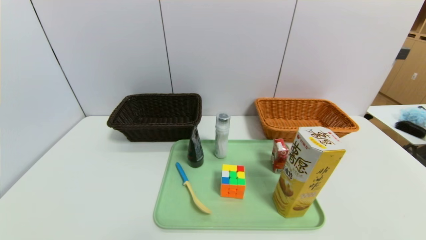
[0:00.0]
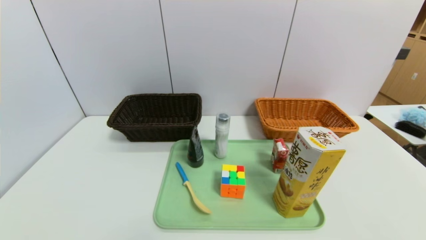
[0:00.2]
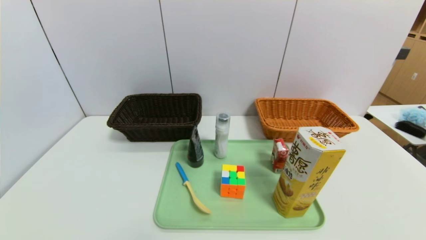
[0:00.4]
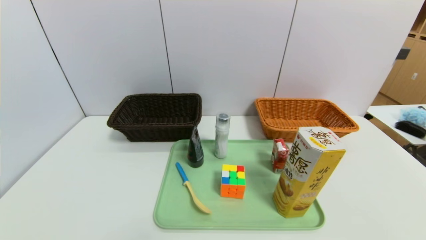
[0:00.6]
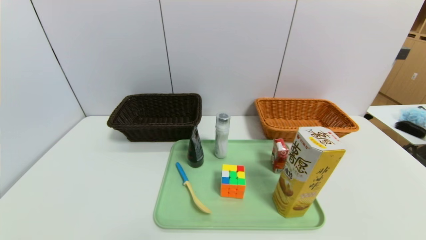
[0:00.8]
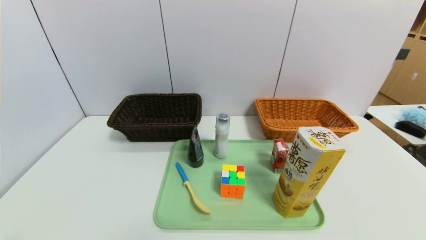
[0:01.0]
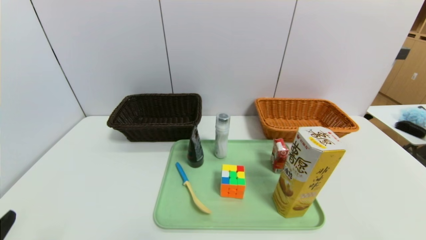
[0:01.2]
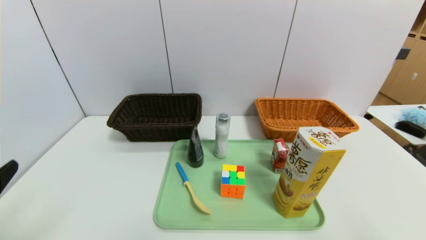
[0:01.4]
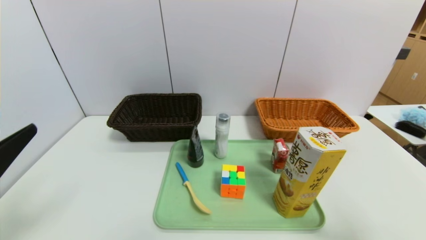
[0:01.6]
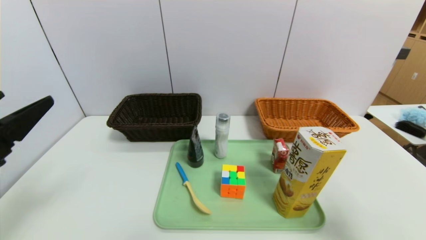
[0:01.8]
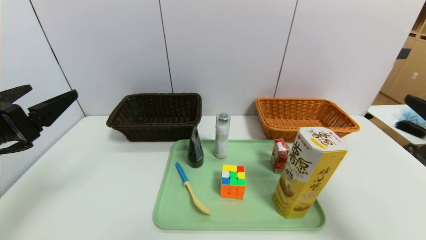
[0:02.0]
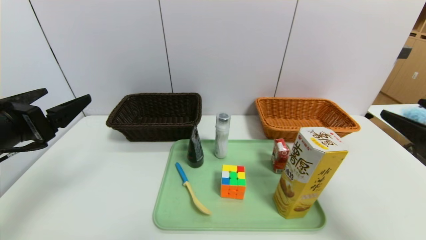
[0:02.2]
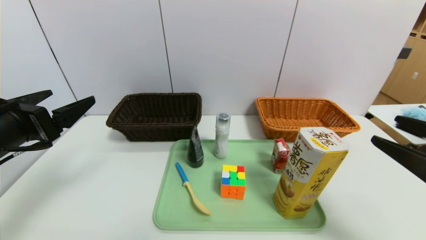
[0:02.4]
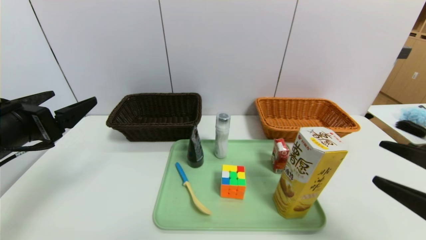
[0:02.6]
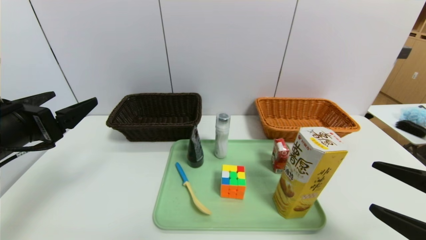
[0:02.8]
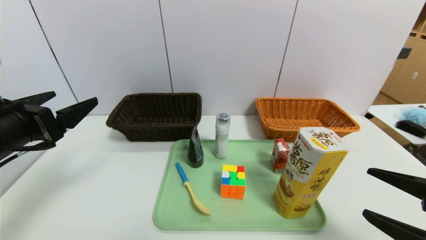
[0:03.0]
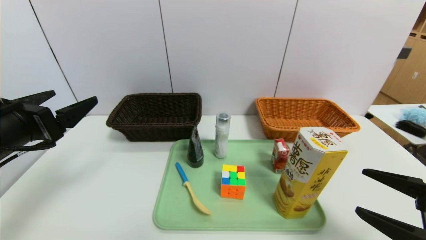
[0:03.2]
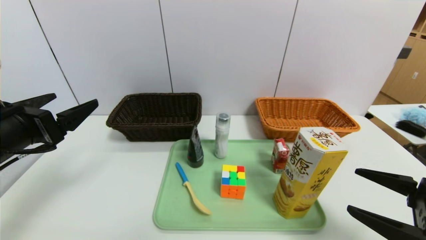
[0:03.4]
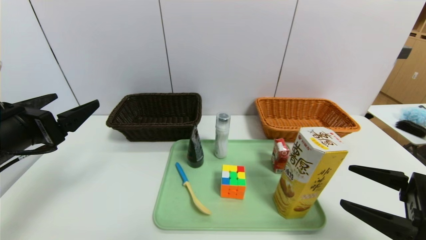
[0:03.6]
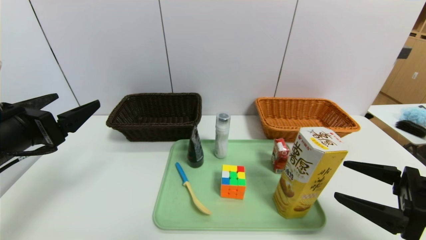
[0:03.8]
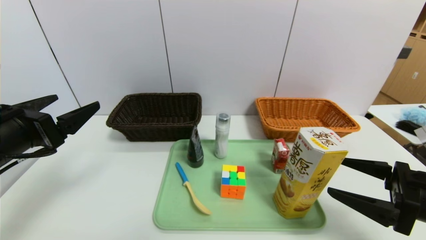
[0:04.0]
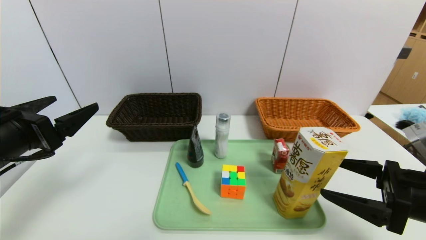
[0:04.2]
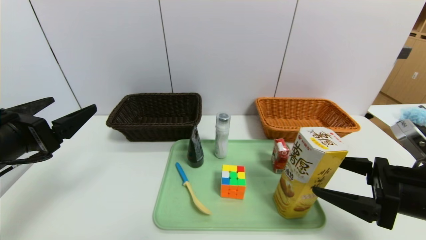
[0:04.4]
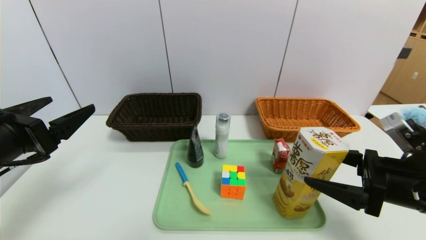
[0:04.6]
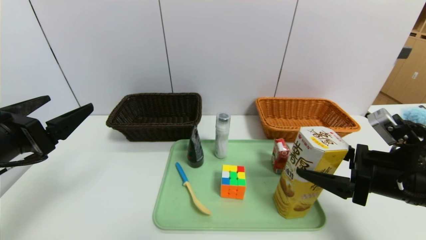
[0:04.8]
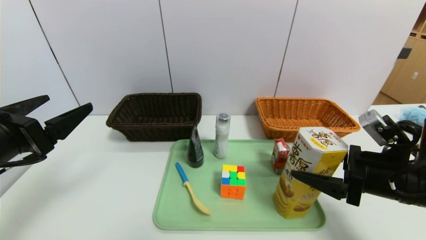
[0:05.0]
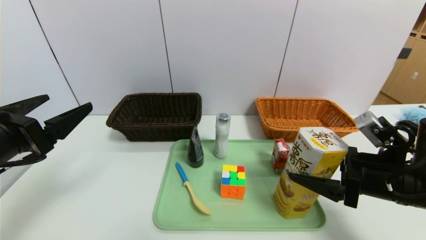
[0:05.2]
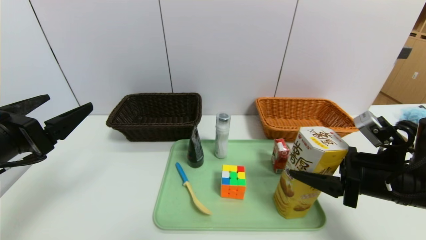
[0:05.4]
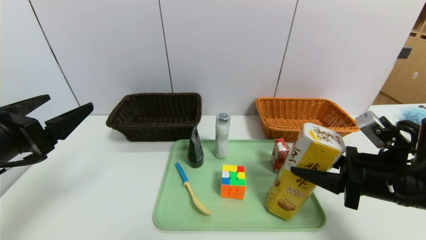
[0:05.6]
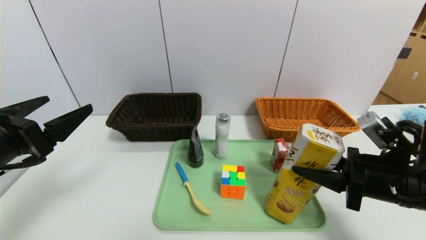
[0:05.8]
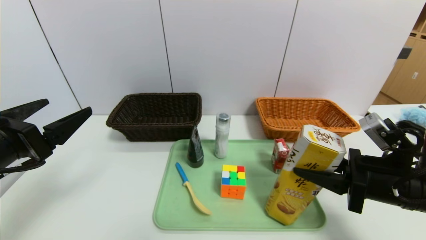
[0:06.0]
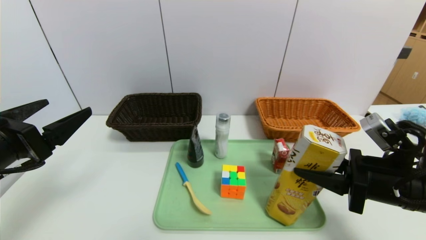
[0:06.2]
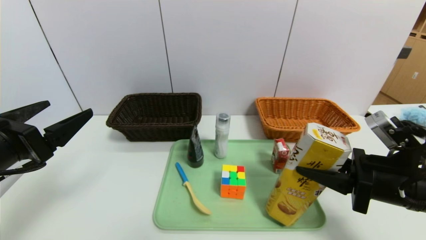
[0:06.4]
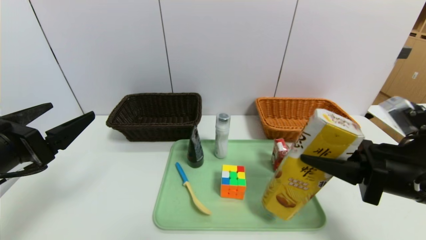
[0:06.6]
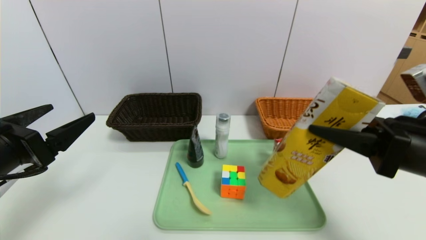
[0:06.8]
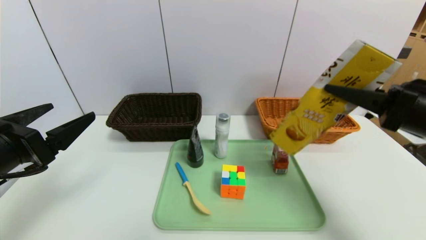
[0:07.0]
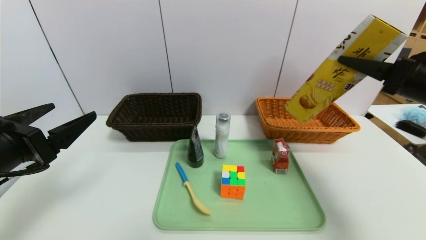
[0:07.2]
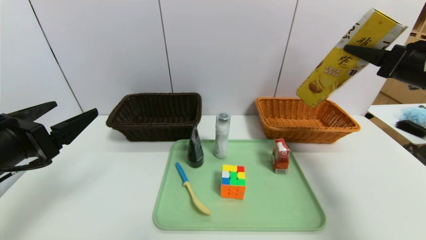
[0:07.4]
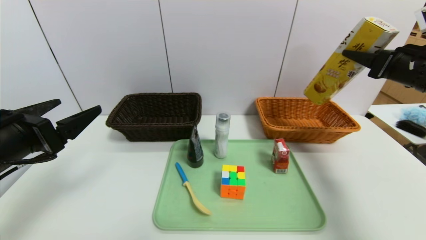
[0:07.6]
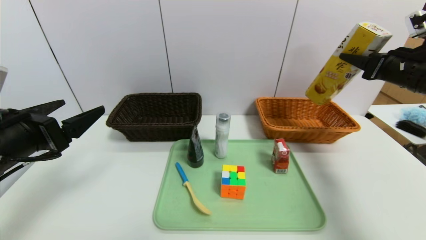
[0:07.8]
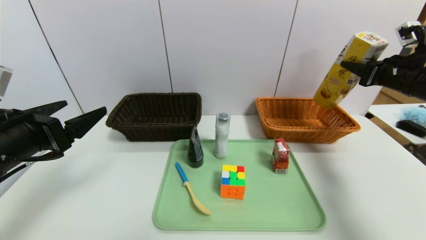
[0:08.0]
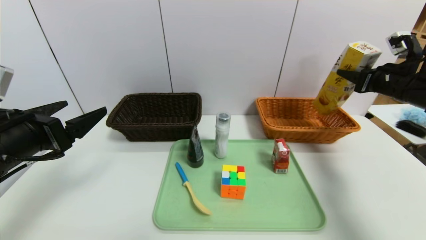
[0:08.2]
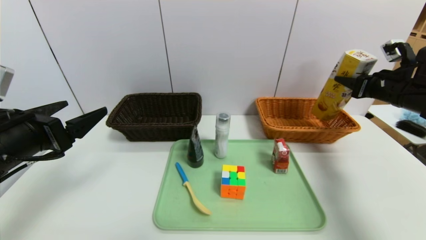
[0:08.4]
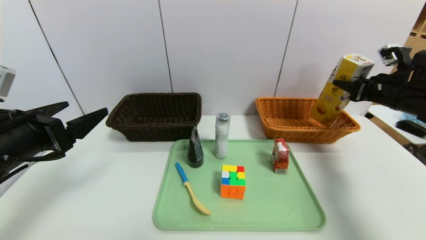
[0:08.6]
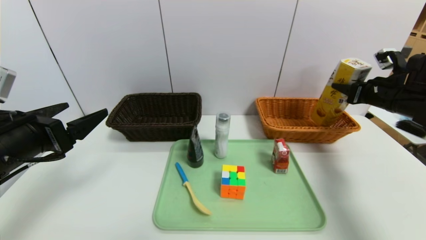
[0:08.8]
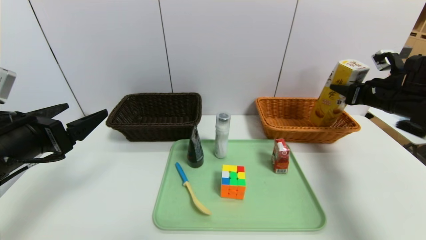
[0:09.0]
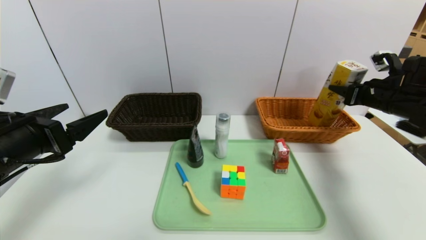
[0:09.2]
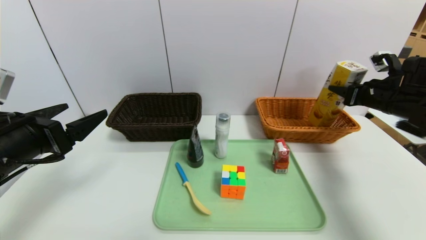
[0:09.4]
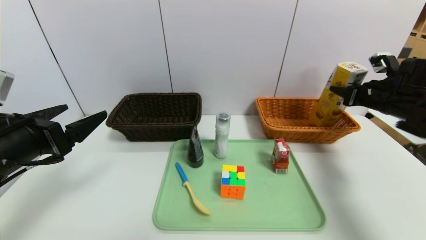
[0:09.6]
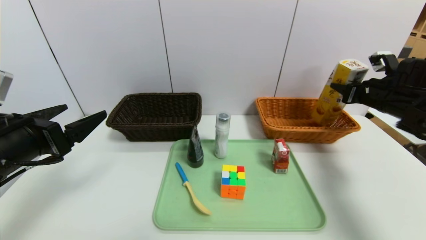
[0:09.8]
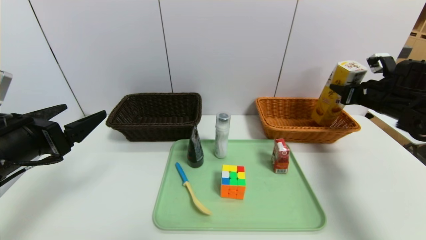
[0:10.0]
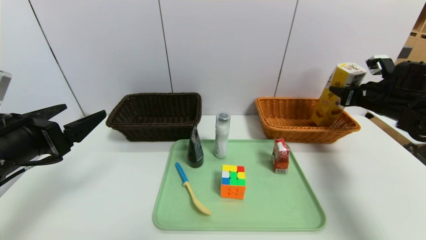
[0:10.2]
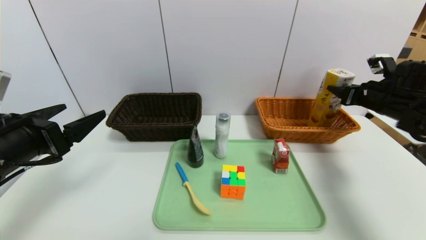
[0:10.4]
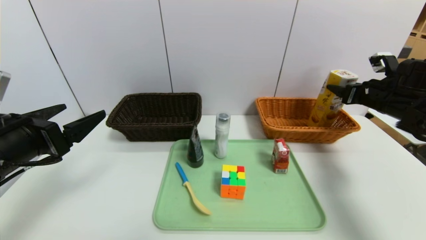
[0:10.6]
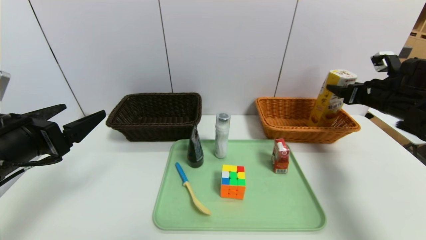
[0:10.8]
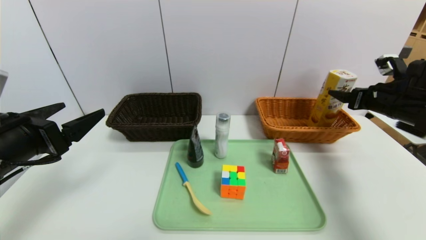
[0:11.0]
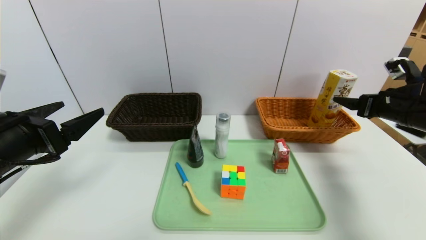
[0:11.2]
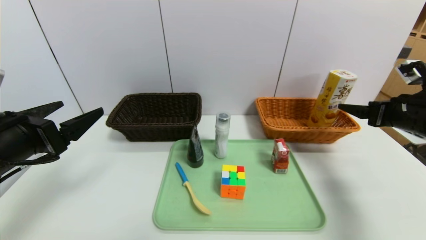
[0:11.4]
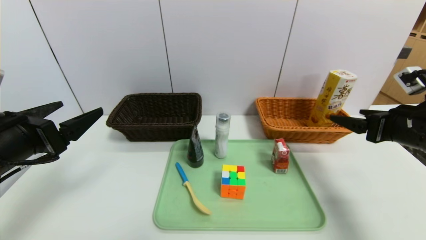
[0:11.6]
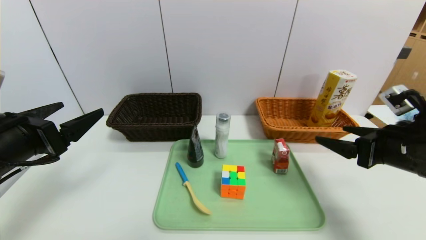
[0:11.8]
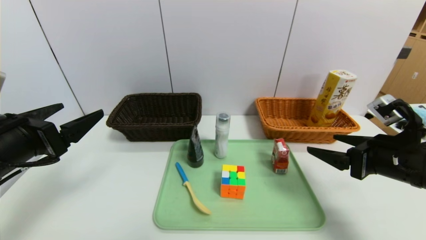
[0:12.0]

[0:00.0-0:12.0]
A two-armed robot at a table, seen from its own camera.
Task of the whole recording: place the food in the right basket with the right gripper, and place the non food items in the left basket with the left gripper.
Step, 0:00.0 to 0:11.8: Grasp the potato chips and put it in the right basket.
0:00.0 to 0:01.6: The grippers both shift upward and forward by some 20 cm.
0:01.6 to 0:03.0: The left gripper heads forward, covering about 10 cm, while the right gripper shifts approximately 5 cm downward.
0:03.0 to 0:04.4: The right gripper shifts roughly 5 cm forward.
0:04.4 to 0:06.0: The right gripper closes up.
0:06.0 to 0:07.6: The right gripper shifts roughly 20 cm upward, forward and to the right.
0:07.6 to 0:09.0: The right gripper goes some 10 cm downward and forward.
0:09.0 to 0:10.4: The grippers move only a little.
0:10.4 to 0:12.0: The right gripper is displaced backward and to the left by some 20 cm, and opens up.

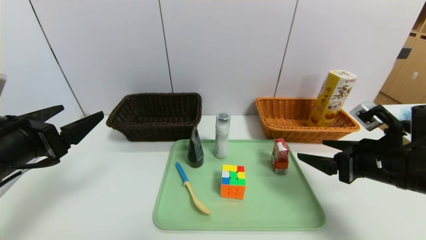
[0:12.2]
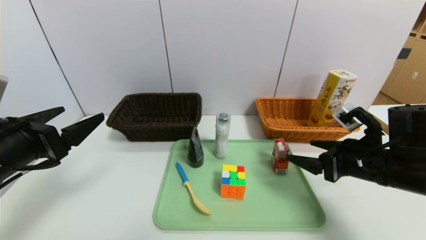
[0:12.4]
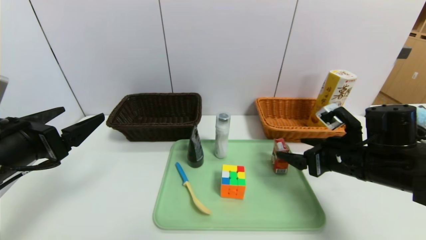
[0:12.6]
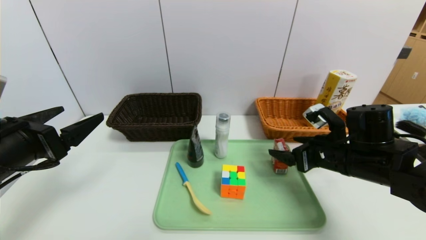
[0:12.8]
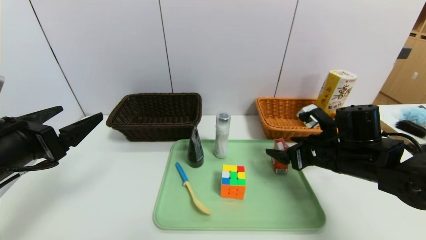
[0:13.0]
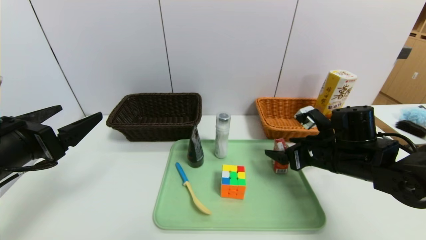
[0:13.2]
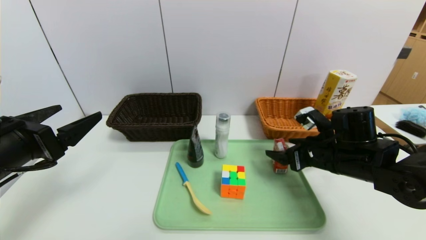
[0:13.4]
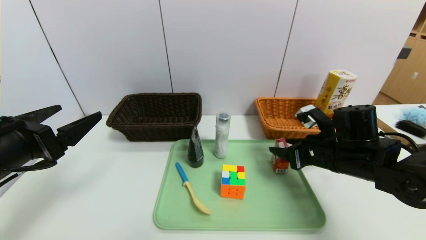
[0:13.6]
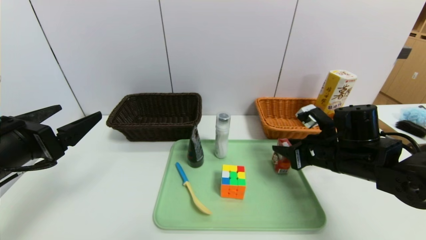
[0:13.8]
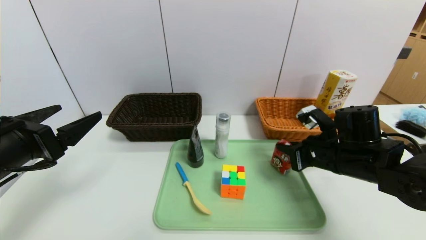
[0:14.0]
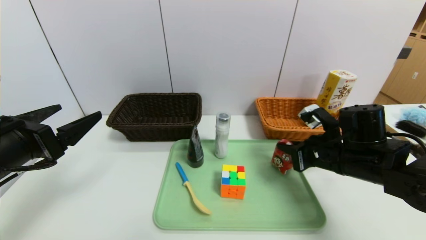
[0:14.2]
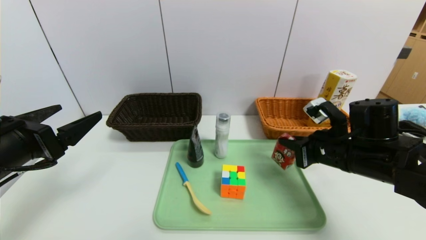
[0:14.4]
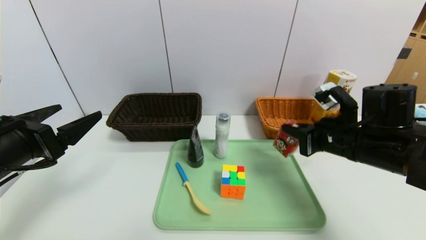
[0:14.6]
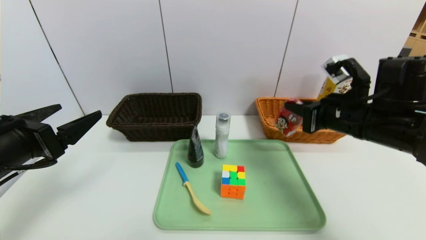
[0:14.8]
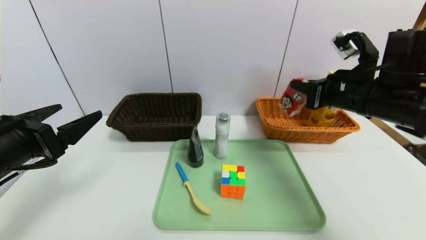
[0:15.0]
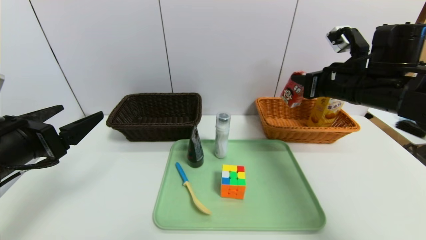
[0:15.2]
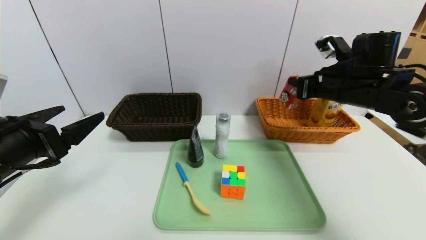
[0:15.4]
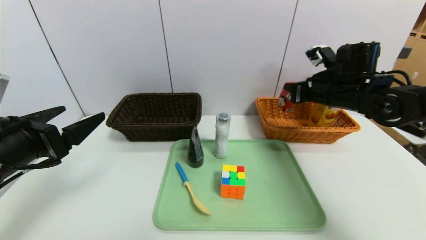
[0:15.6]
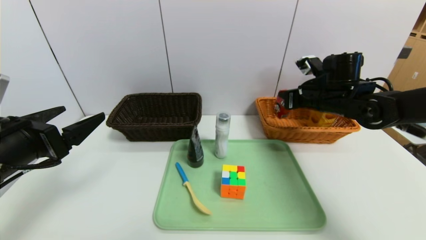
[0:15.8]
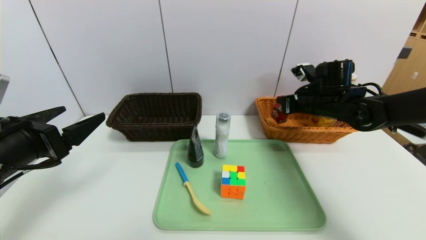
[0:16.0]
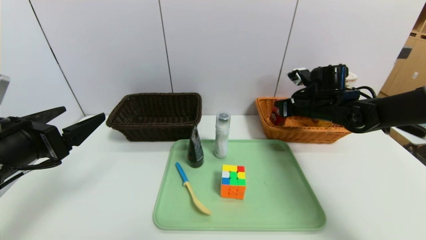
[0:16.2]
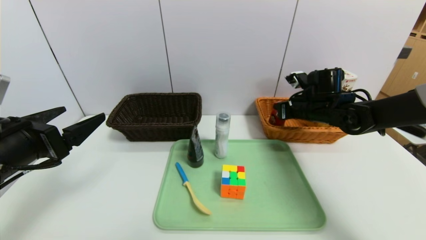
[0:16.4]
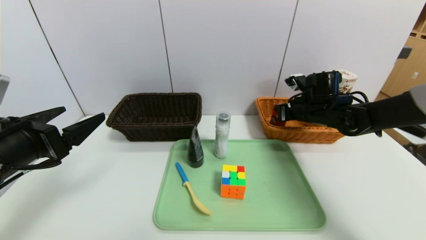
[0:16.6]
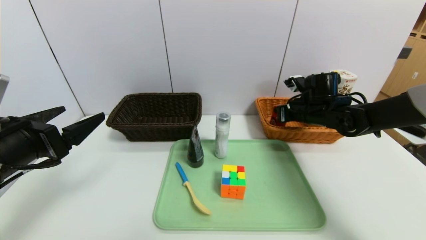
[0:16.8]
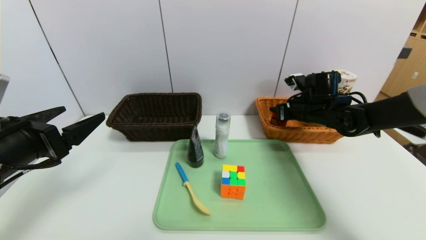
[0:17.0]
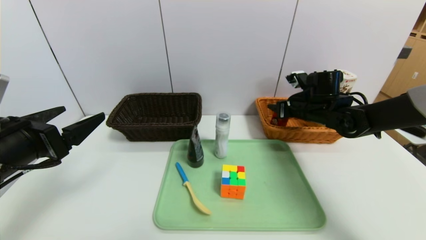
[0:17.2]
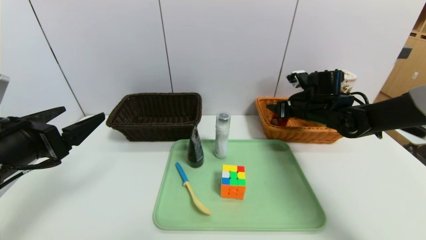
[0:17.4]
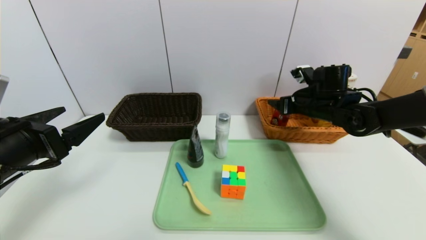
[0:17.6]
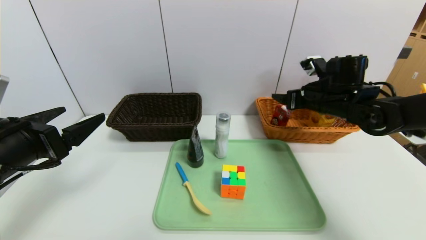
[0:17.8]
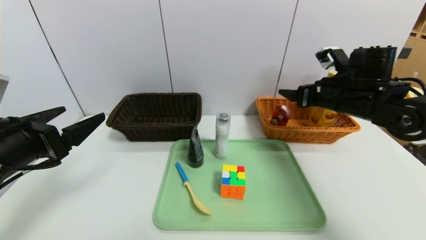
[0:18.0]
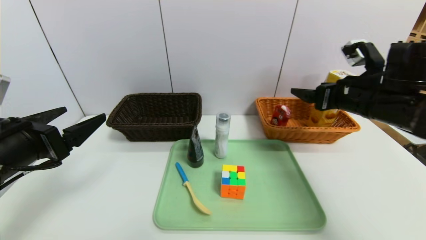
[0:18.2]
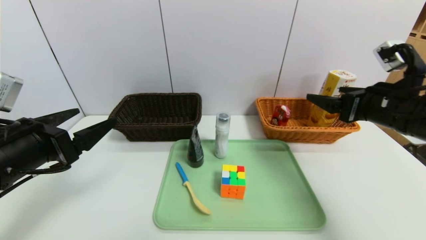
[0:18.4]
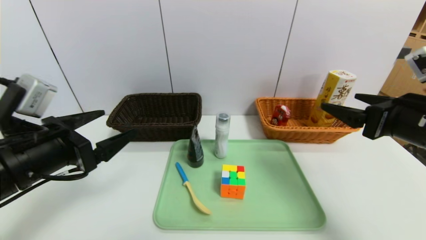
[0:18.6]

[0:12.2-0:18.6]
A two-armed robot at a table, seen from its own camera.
Task of the whole recording: place the food in the right basket with the right gripper, and place the non food items in the left basket with the left gripper.
Step, 0:12.2 to 0:17.6: Grasp the ad milk and put it in the right basket.
0:12.2 to 0:13.8: The right gripper moves forward, about 5 cm, and closes.
0:13.8 to 0:15.4: The right gripper goes approximately 15 cm upward and forward, and closes.
0:15.4 to 0:17.0: The right gripper travels downward and forward by roughly 10 cm, and opens up.
0:17.0 to 0:18.6: The right gripper moves backward, some 20 cm, and opens up.
